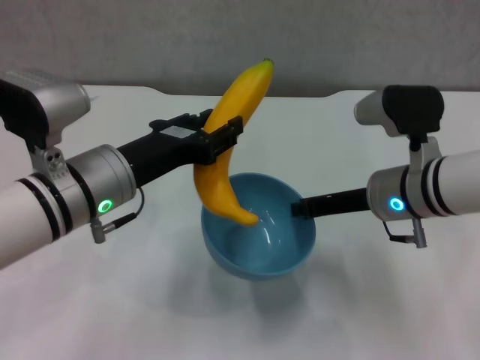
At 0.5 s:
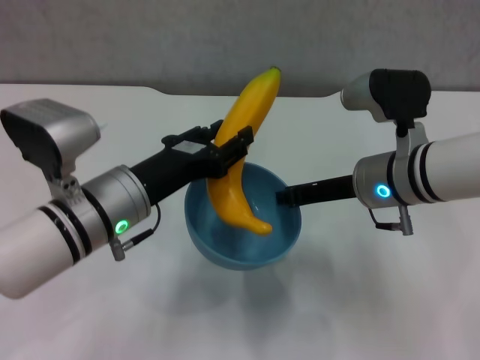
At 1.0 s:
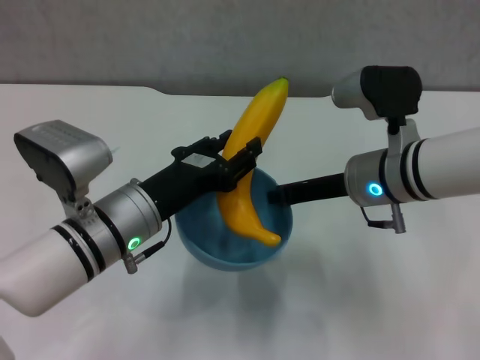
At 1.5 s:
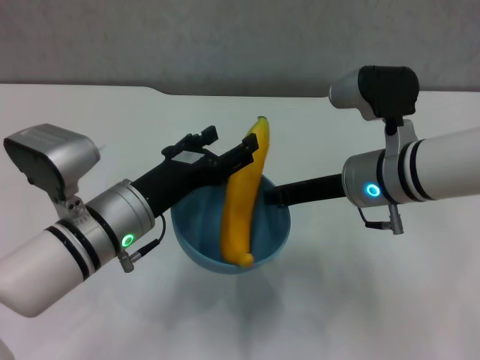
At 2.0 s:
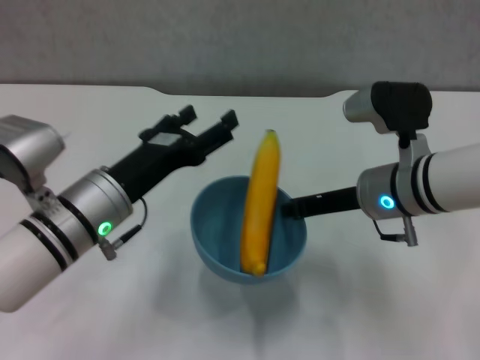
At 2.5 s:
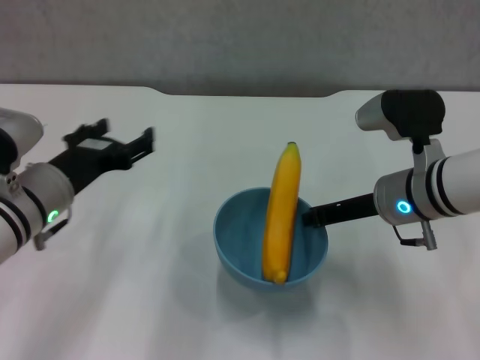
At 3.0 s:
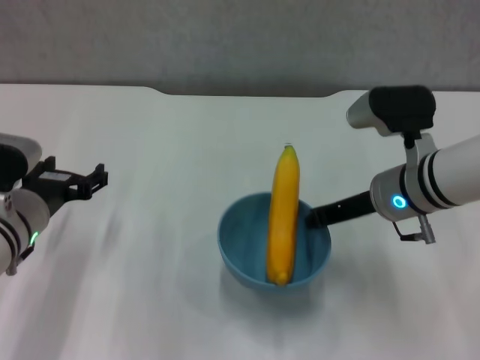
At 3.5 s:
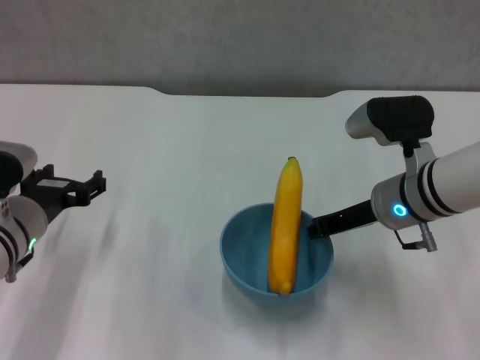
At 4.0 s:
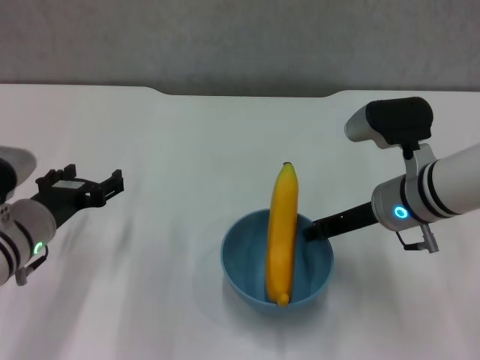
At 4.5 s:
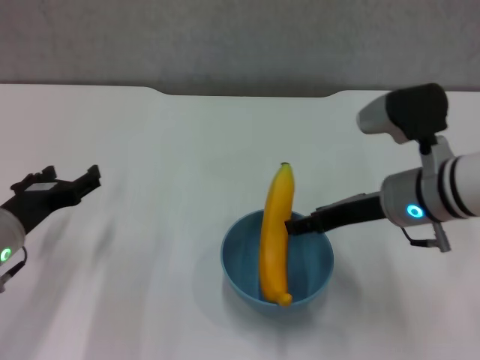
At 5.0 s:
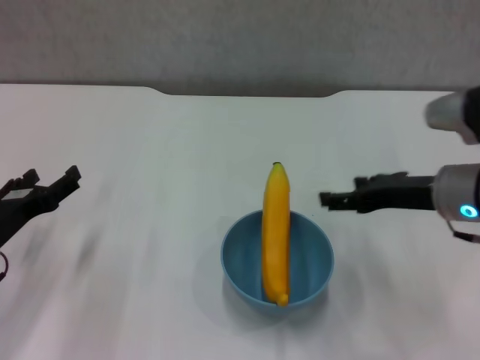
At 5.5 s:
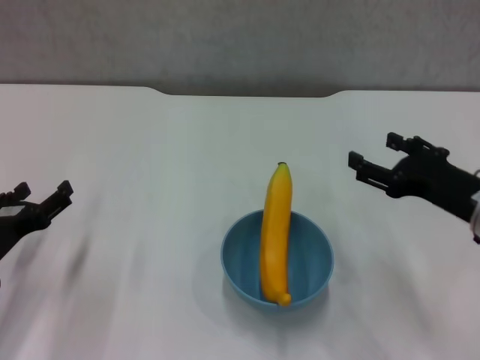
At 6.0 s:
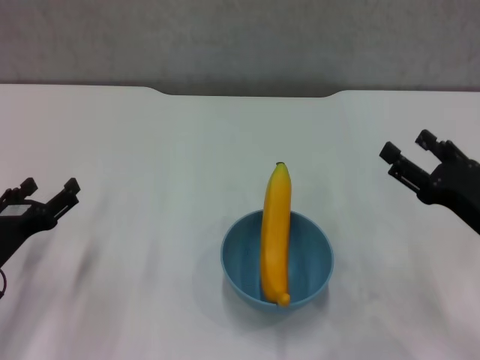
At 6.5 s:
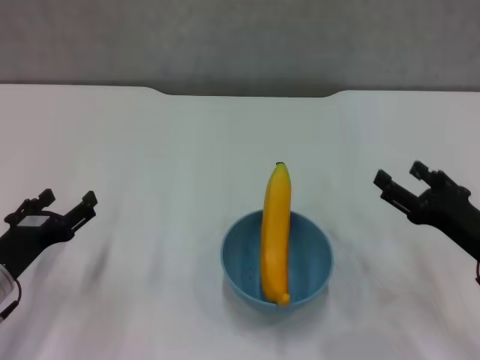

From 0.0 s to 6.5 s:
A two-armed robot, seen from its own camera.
Step, from 1.5 s to 4.5 s: Place the bowl on the table with right gripper.
From 0.0 s to 2.0 s: The left gripper opens.
From 2.0 s to 4.5 s: The left gripper moves to the left, roughly 10 cm, while the right gripper opens.
From 4.5 s to 6.5 s: The left gripper ends up approximately 5 cm from where it was, while the right gripper shifts roughly 15 cm to the right, backward and downward, and opens up.
